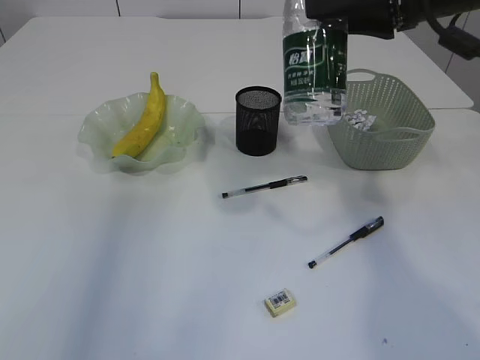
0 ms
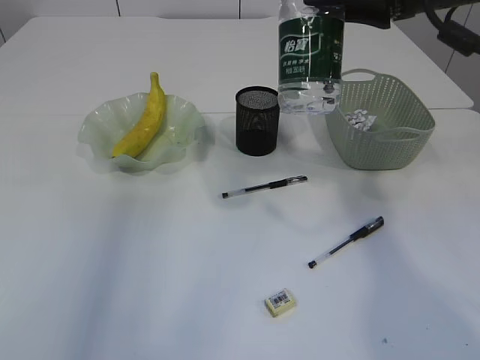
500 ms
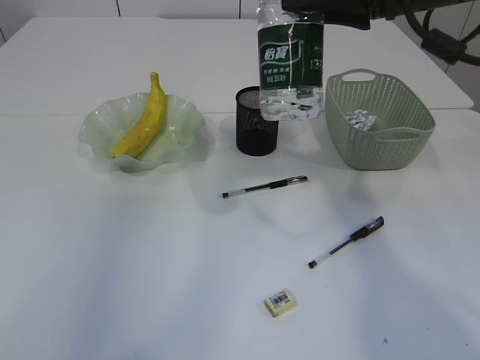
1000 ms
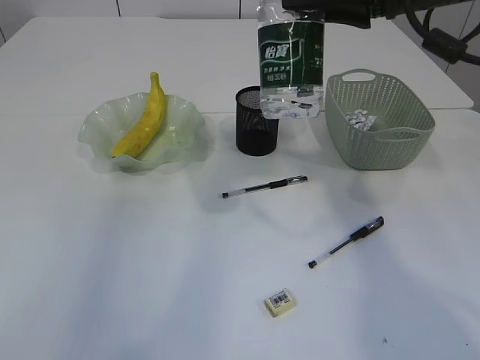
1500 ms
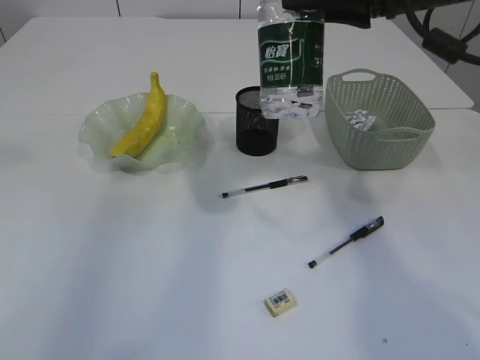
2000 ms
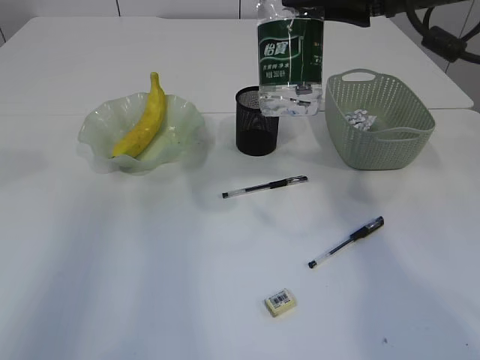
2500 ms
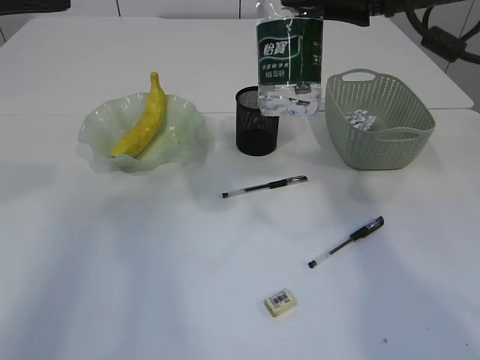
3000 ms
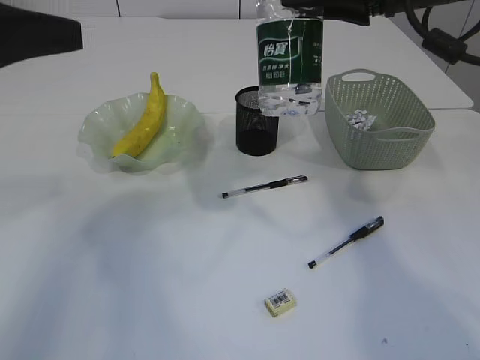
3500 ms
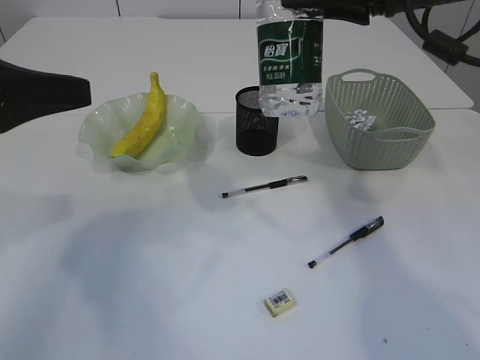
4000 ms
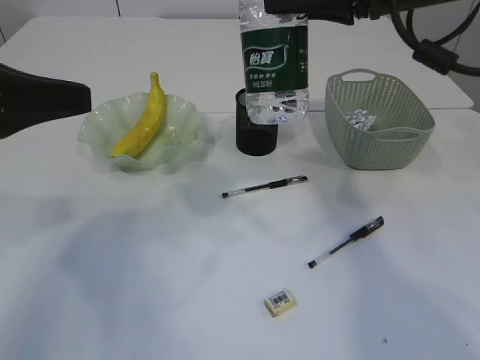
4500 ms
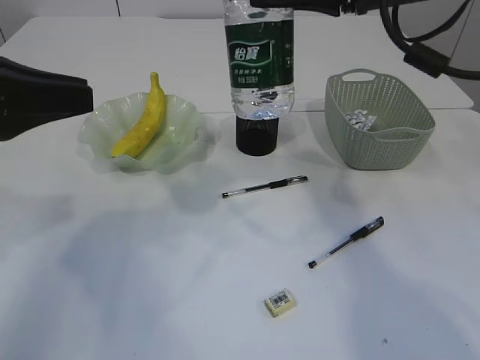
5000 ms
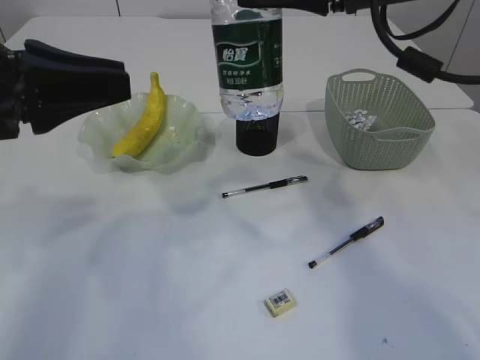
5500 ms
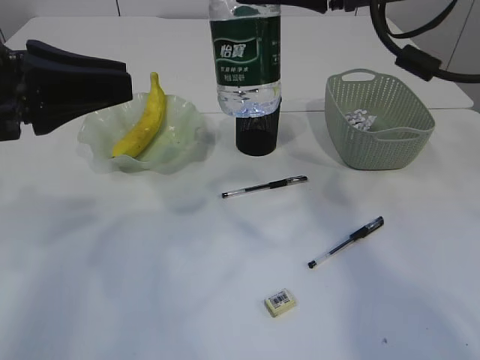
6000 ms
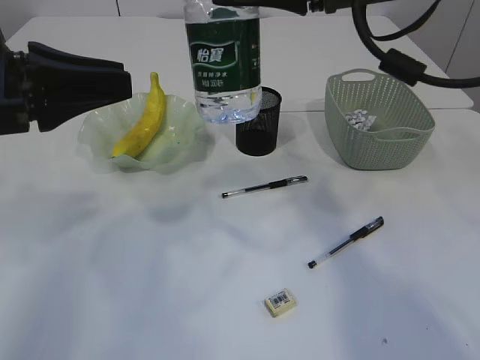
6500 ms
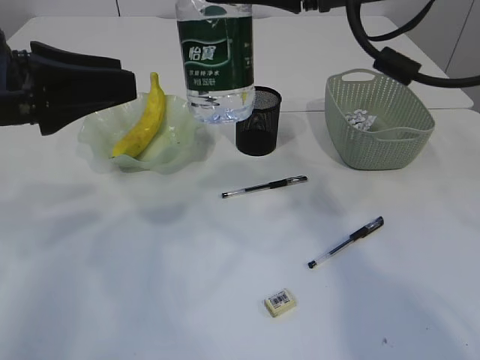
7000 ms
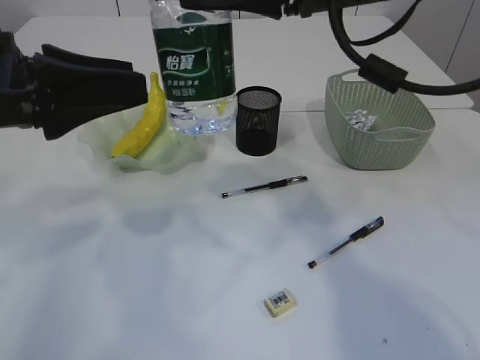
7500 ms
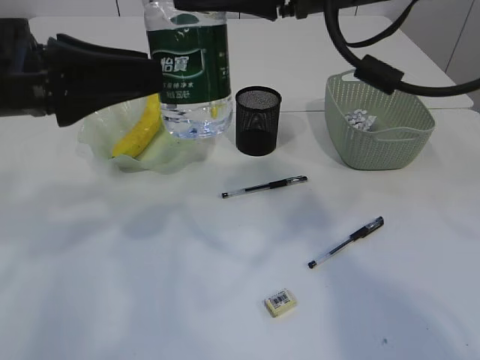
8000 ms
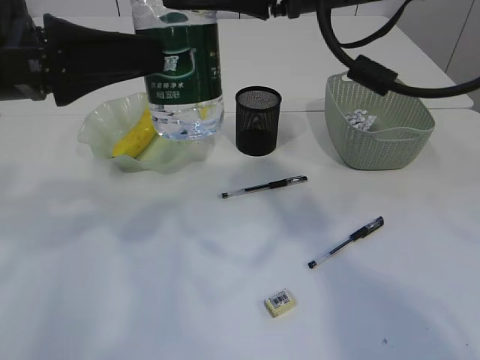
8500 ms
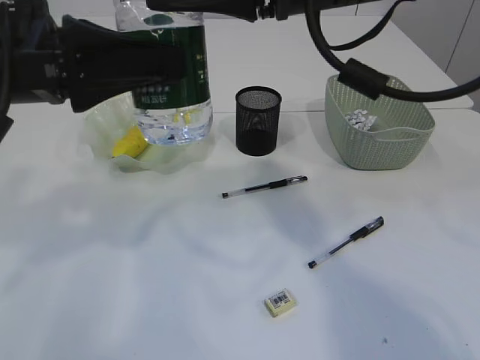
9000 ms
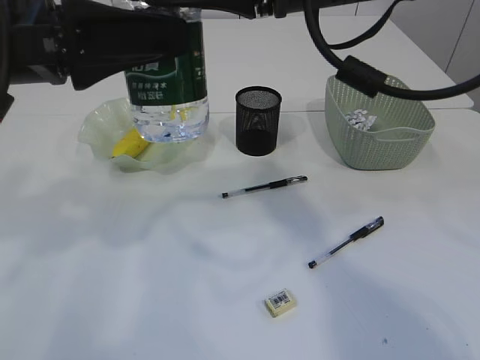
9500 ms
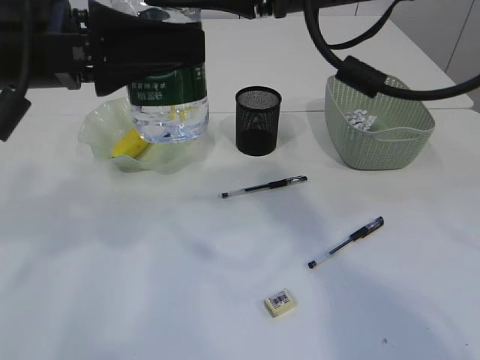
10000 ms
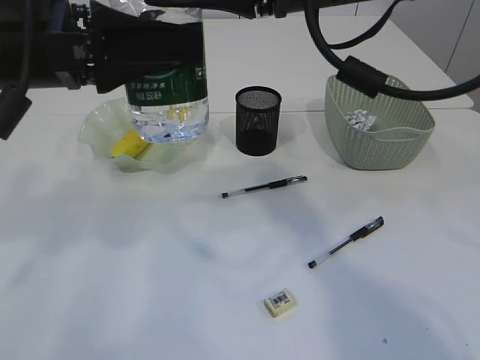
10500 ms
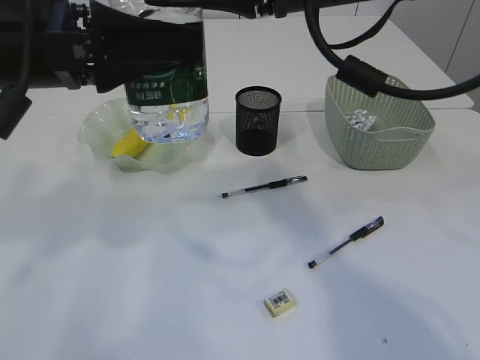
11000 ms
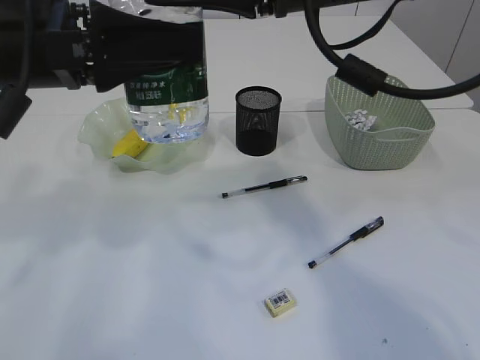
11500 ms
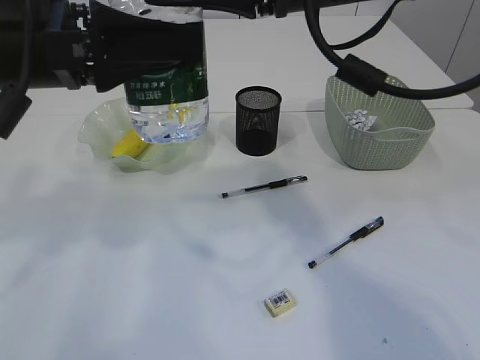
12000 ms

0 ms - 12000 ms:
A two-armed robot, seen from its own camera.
0 ms - 2000 ms: The left gripper is displaced downward and forward by some 10 cm.
2000 ms - 4000 ms: The left gripper moves downward, approximately 15 cm.
4000 ms - 6000 ms: The grippers stay close to where they were, moving slightly.
6000 ms - 8000 ms: The left gripper opens.
8000 ms - 10000 ms: The grippers move only a little.
10000 ms - 12000 ms: The left gripper closes.

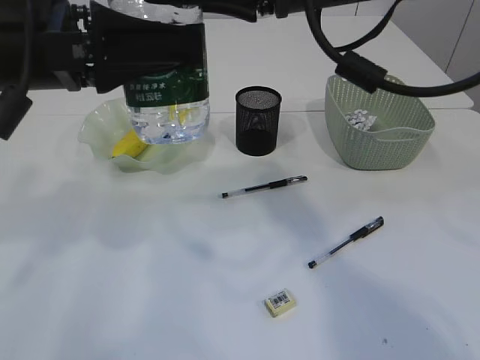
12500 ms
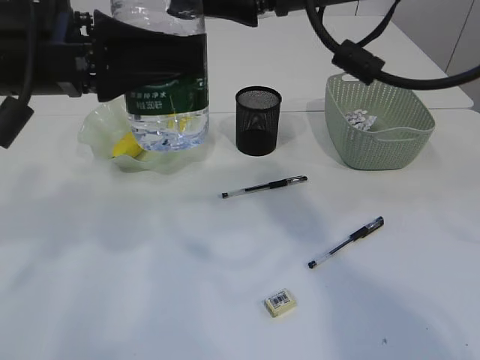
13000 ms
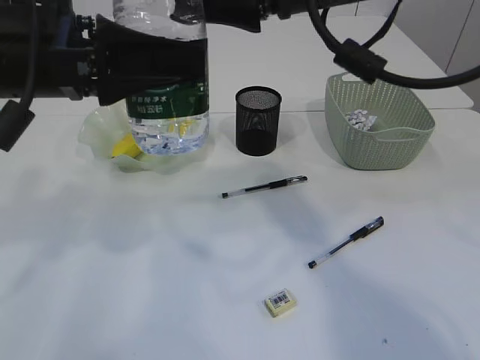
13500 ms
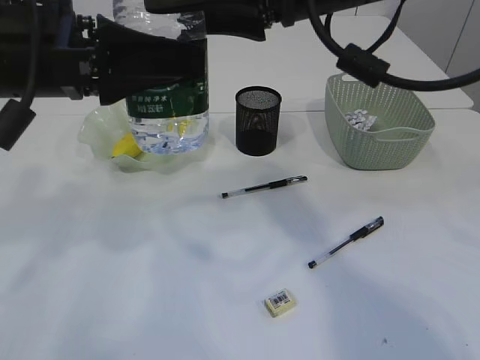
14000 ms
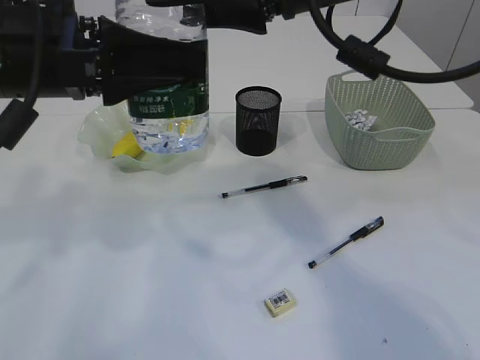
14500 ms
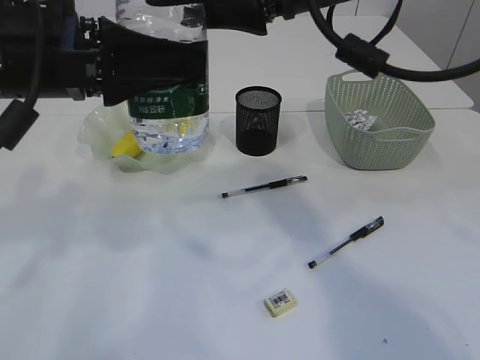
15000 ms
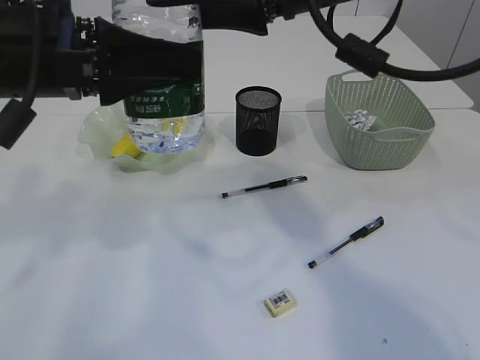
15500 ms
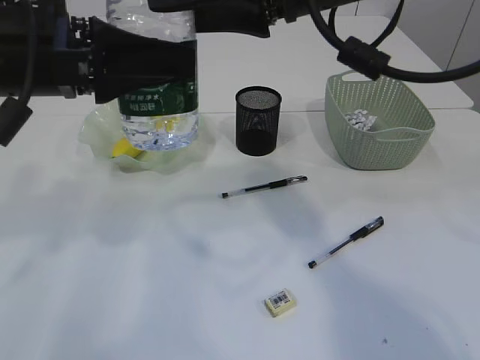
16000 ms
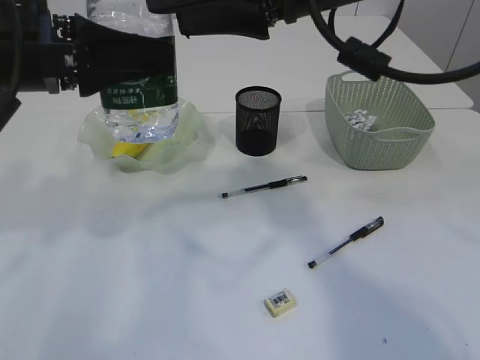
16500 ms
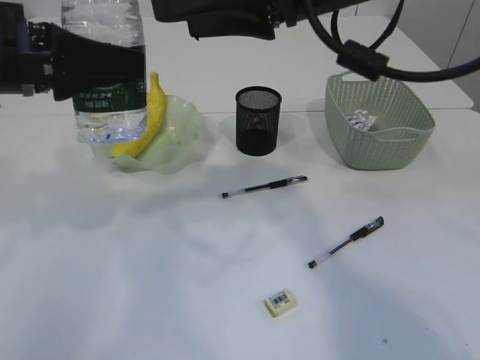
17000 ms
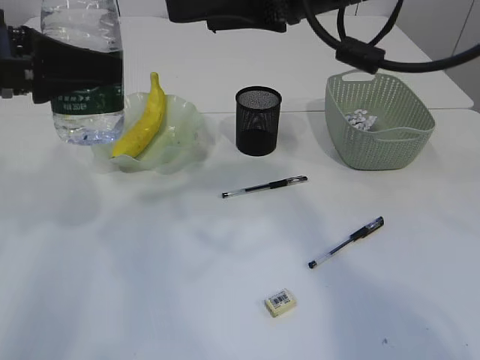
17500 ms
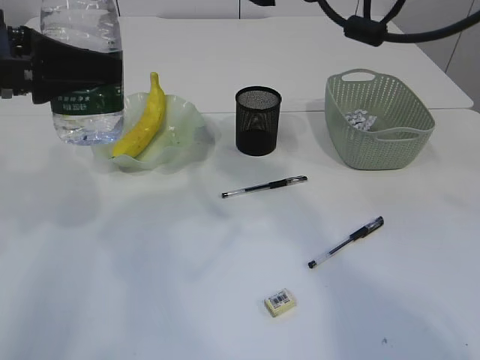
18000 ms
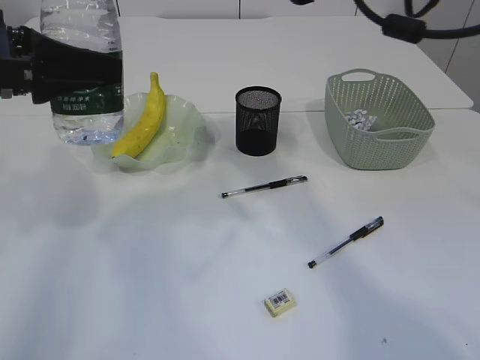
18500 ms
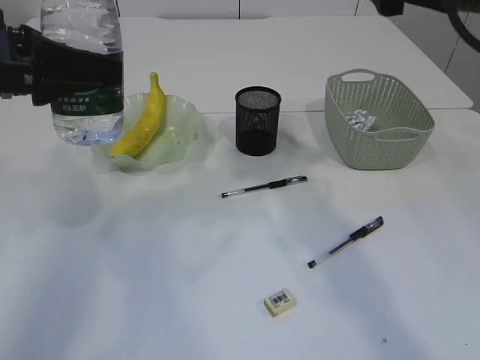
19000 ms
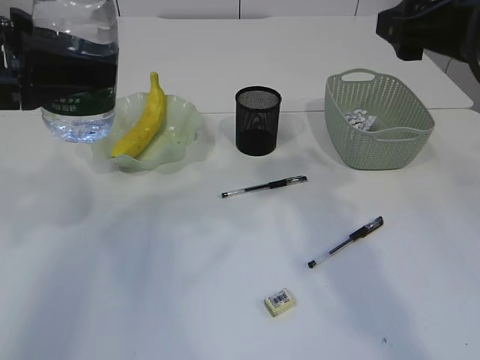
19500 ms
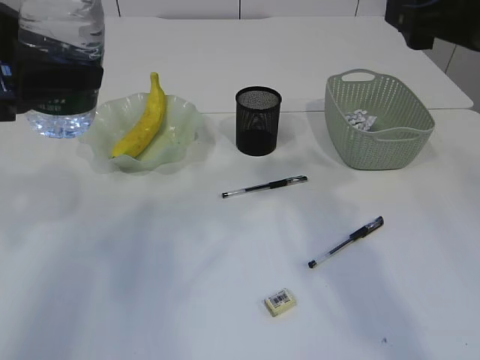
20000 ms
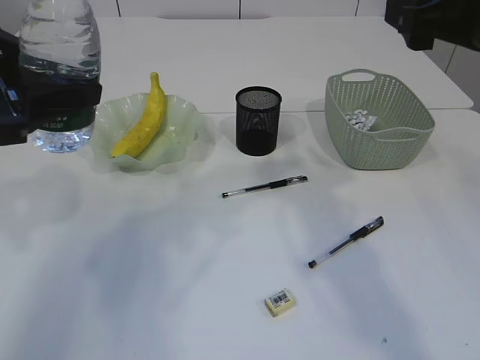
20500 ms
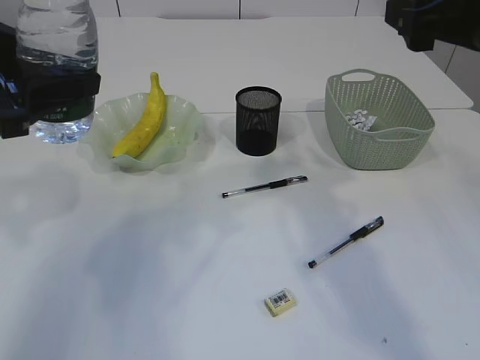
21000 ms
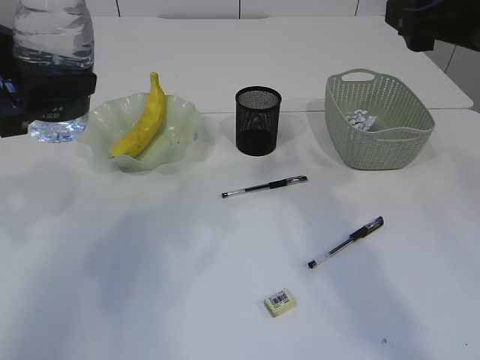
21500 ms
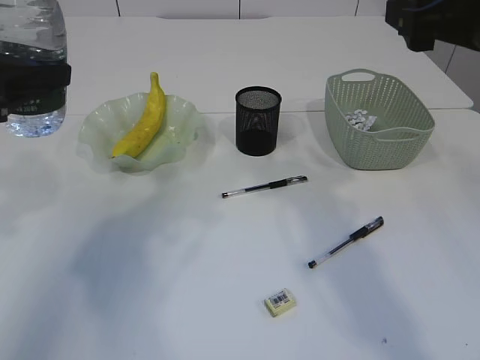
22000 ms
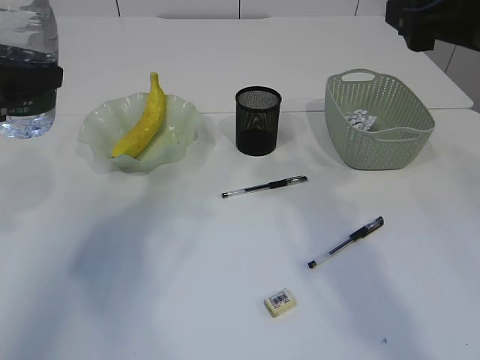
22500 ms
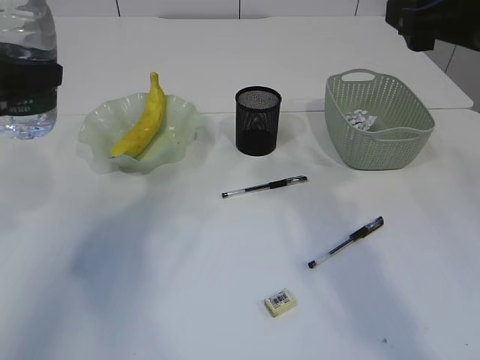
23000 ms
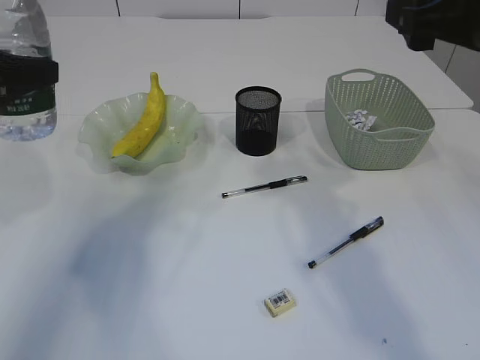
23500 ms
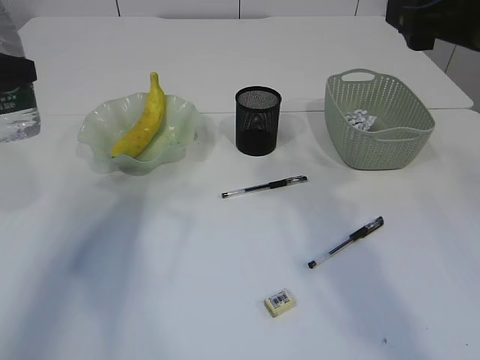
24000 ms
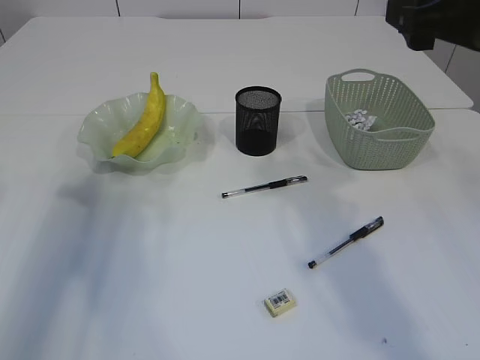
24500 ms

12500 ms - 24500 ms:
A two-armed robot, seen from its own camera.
Step, 12500 ms - 17500 ms: transfer the bottle to the left arm.
12500 ms - 16500 ms: The grippers move only a little.
16500 ms - 18500 ms: The right gripper moves to the right and forward, about 10 cm.
18500 ms - 20500 ms: The right gripper heads backward and to the right, covering about 10 cm.
20500 ms - 22500 ms: The grippers move only a little.

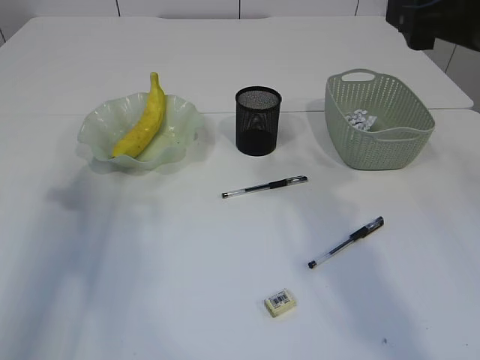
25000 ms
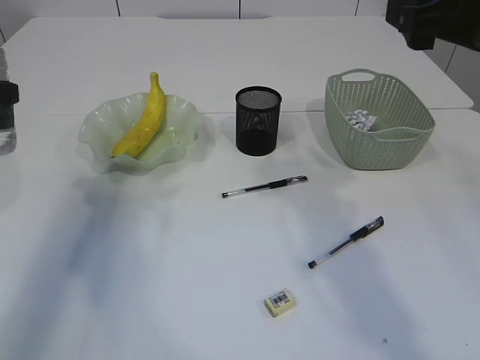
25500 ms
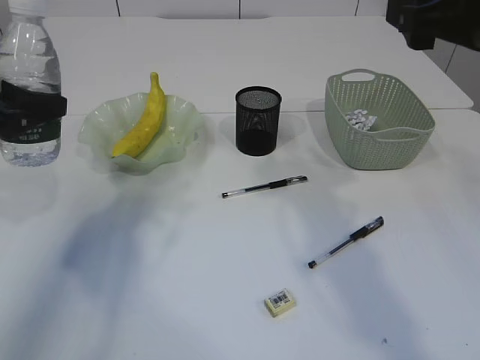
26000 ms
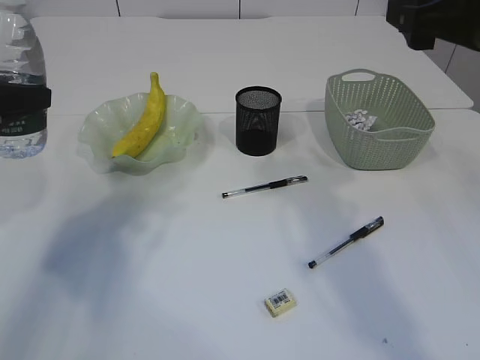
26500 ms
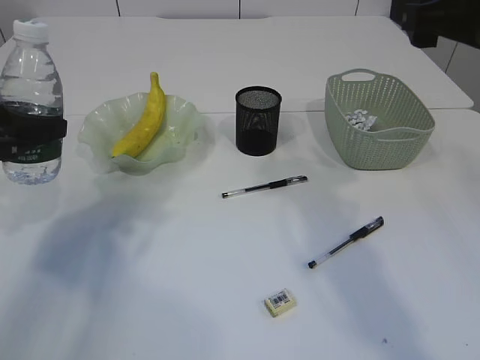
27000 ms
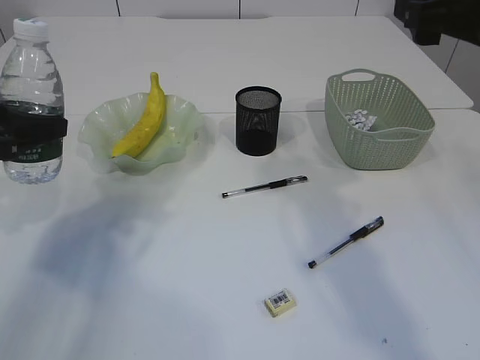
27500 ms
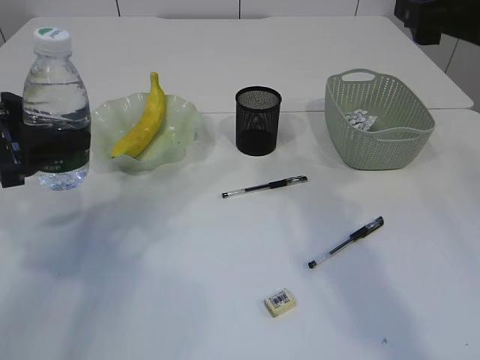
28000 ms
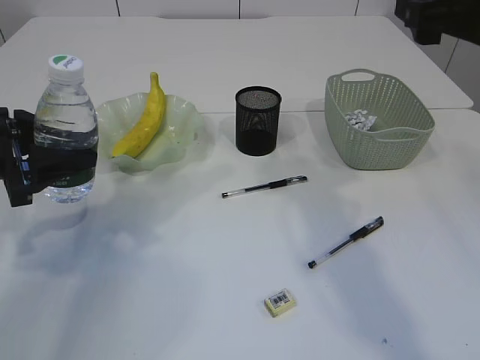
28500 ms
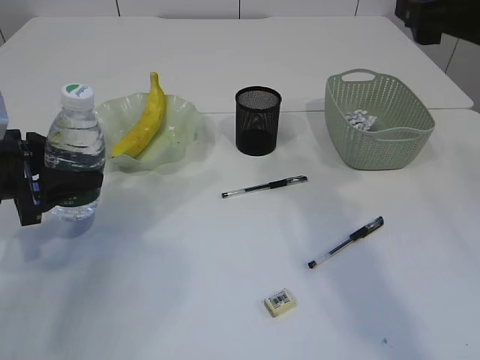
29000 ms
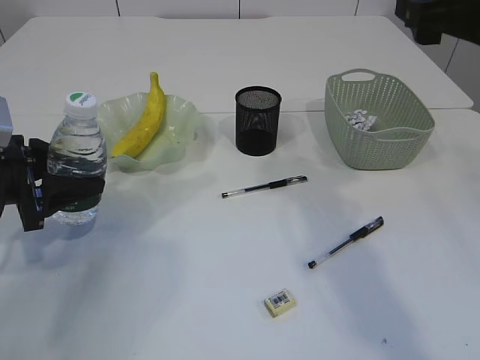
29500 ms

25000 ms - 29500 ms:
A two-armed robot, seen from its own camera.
25000 ms - 27000 ms: The left gripper moves approximately 5 cm.
27000 ms - 29500 ms: The left gripper is displaced downward by approximately 10 cm.
